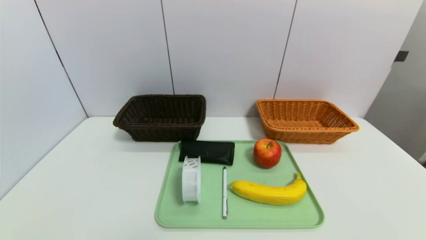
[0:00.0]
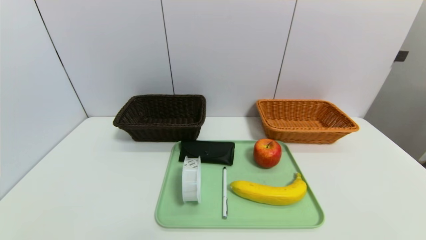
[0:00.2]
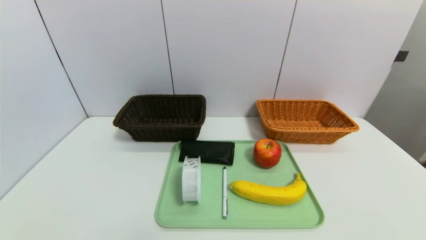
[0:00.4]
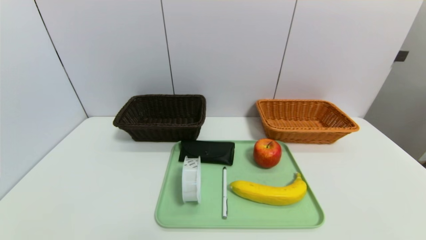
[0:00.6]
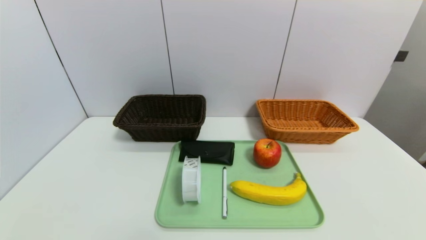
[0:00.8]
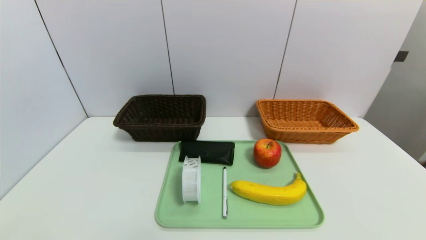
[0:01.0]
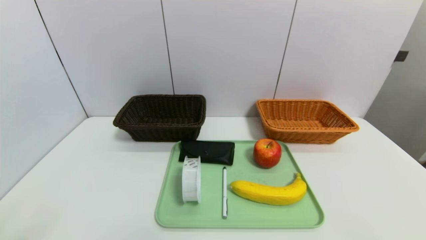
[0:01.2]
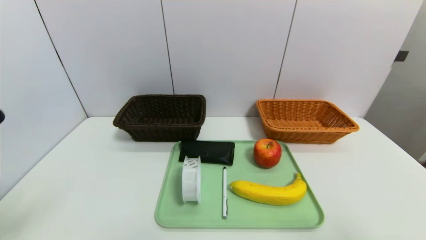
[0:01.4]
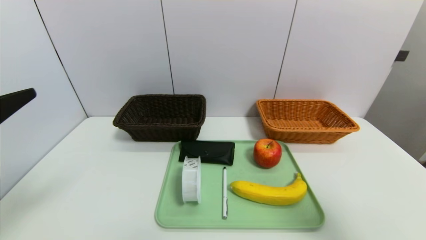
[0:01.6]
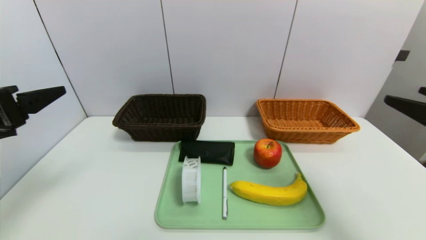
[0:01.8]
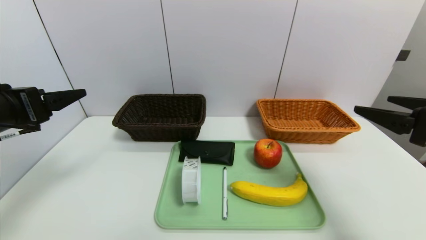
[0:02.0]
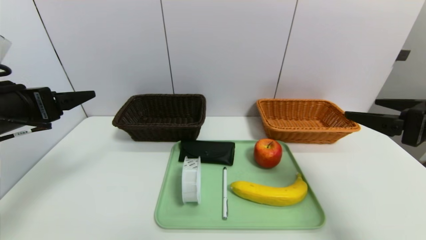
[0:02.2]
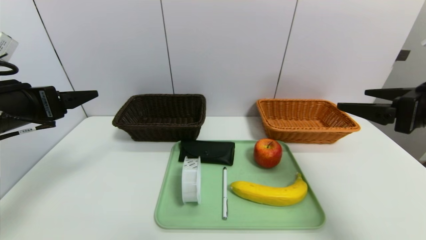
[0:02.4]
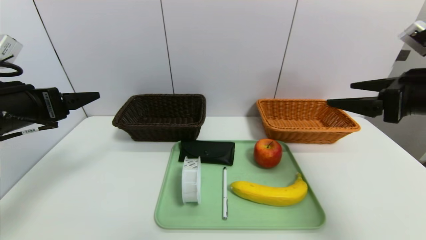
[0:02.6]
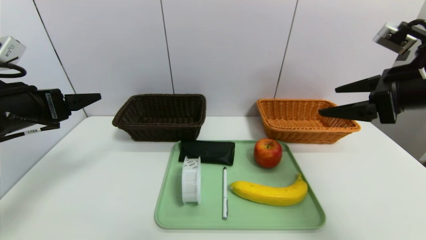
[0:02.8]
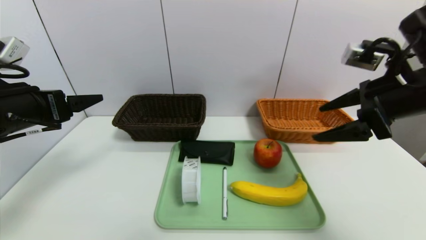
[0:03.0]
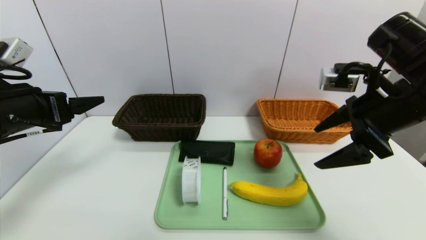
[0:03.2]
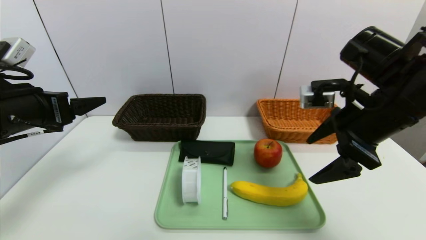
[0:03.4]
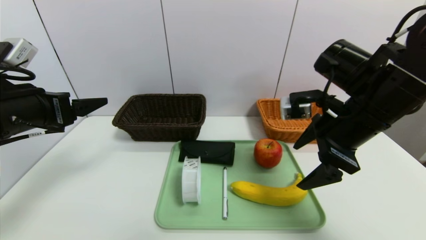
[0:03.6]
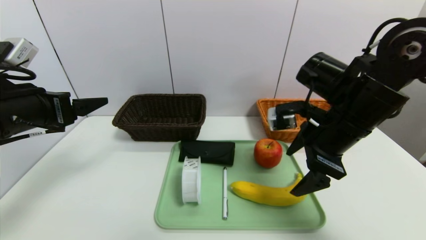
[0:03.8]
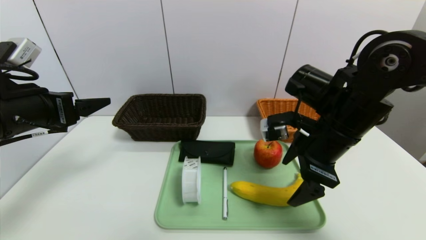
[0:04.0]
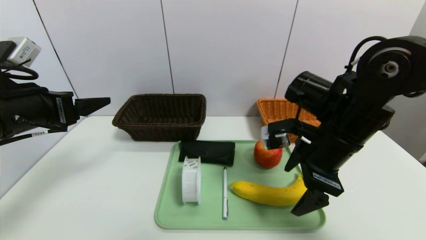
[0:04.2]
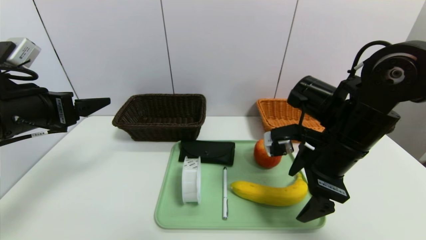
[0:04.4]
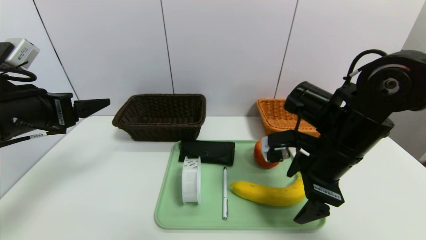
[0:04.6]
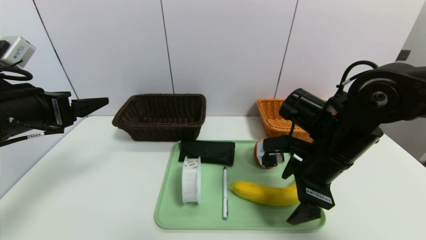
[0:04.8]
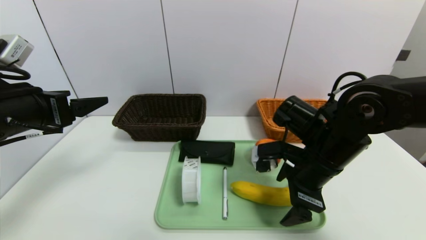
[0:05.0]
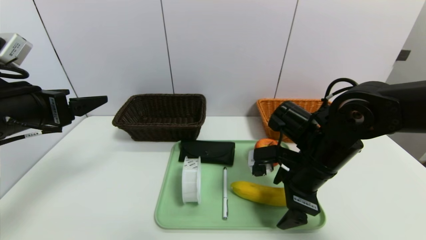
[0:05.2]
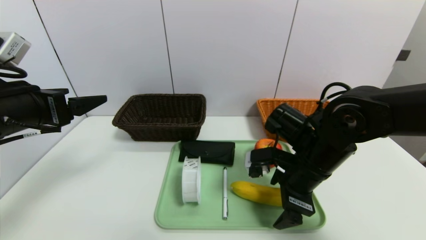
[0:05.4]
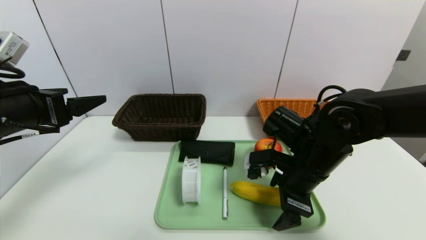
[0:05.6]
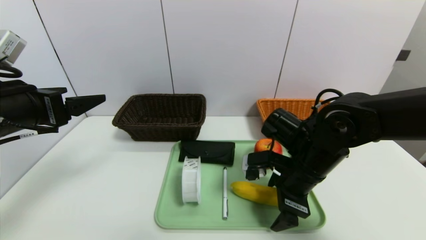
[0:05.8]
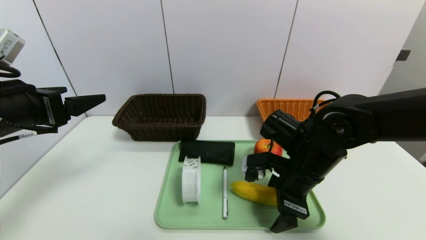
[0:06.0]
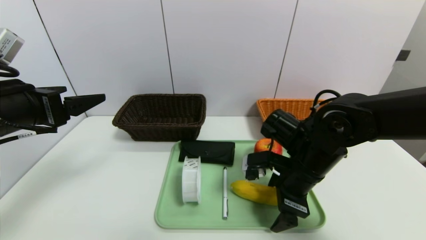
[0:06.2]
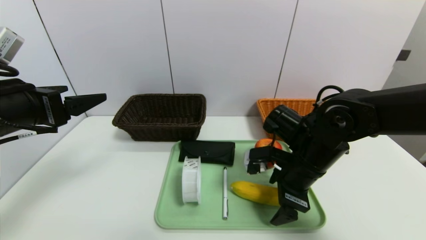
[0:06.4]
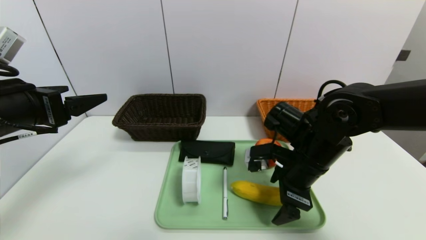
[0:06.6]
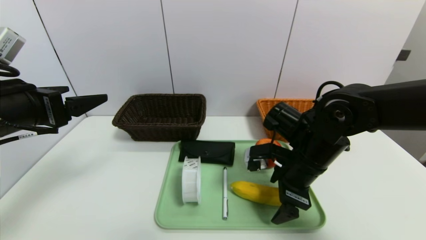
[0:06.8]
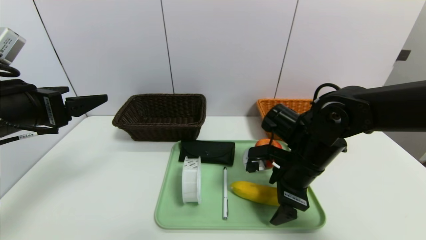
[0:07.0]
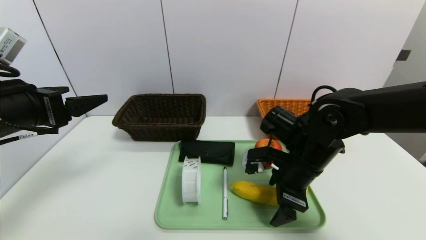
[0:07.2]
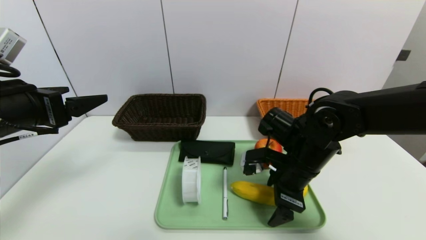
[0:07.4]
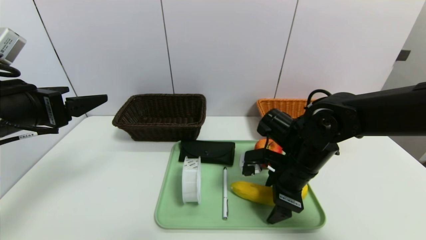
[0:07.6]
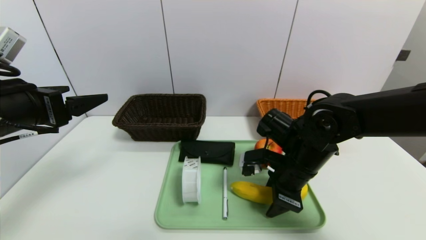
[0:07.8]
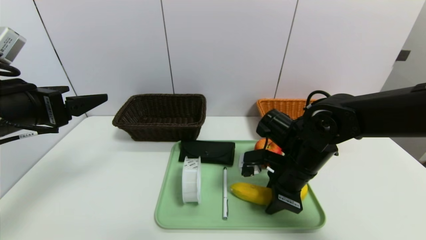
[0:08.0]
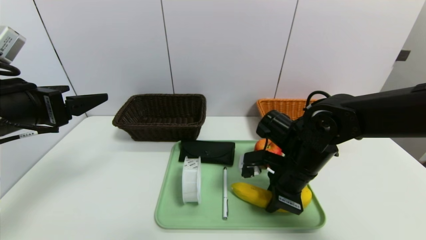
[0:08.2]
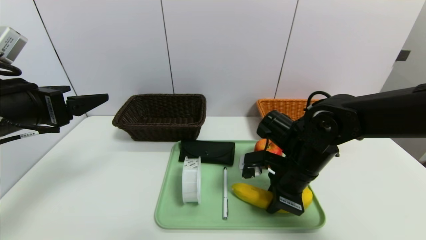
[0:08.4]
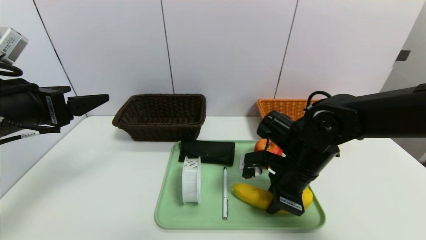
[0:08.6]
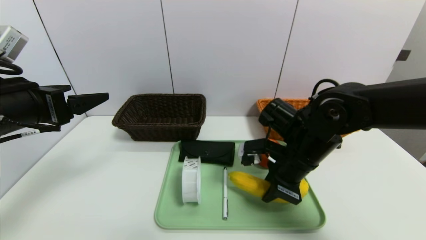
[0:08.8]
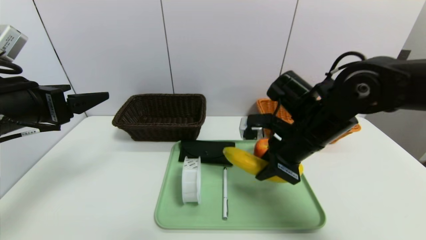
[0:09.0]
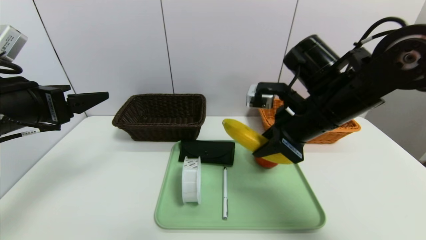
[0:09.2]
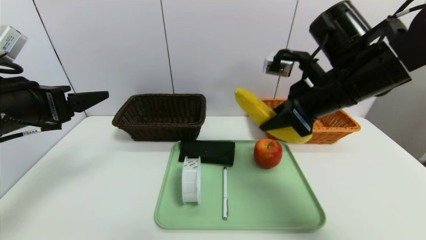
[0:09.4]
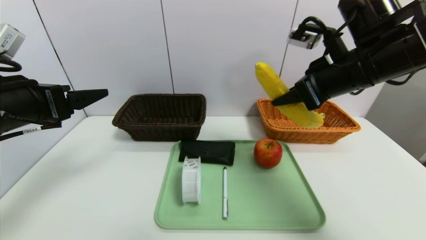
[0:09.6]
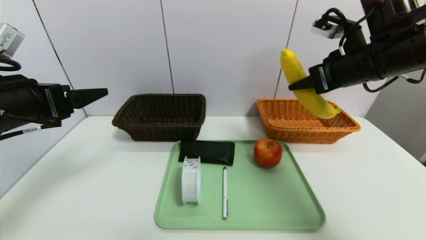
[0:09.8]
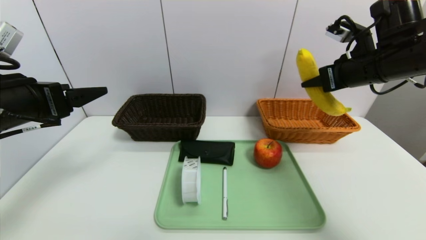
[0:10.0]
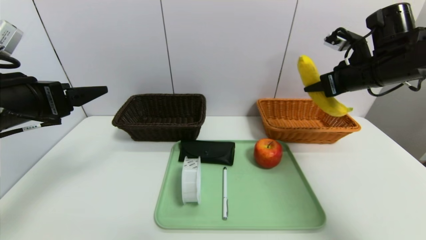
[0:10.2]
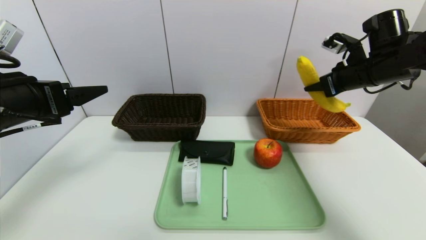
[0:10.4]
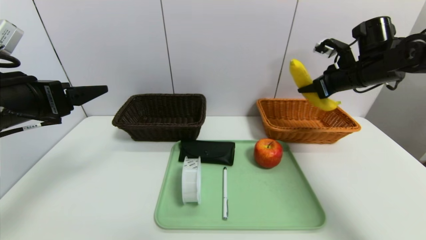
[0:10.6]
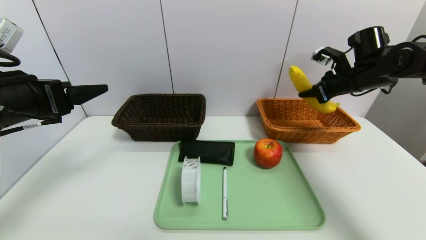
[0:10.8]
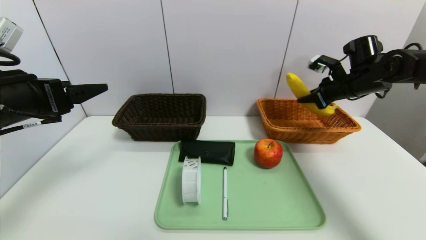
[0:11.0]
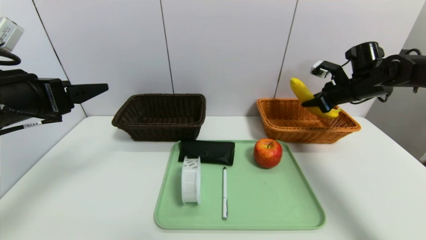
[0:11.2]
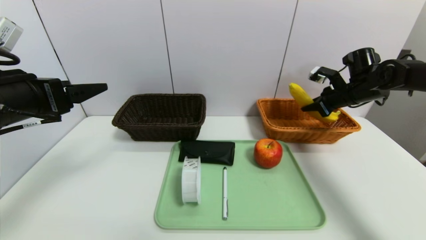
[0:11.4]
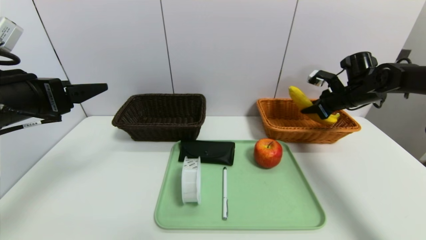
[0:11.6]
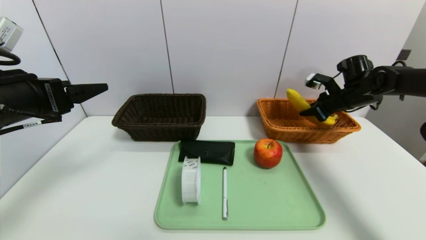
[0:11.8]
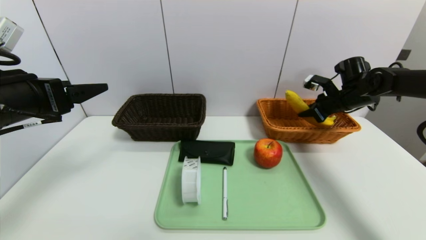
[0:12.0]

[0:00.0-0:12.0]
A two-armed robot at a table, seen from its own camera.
Task of the whole recording: place the food in the right basket with the right gripper, and place the non food items in the left basket with the left gripper.
0:00.0 to 0:01.6: The grippers both shift upward and forward by about 25 cm.
0:01.6 to 0:03.0: The left gripper travels forward by roughly 10 cm. Meanwhile the right gripper moves forward, some 15 cm.
0:03.0 to 0:04.4: The right gripper goes some 10 cm to the left and downward.
0:04.4 to 0:06.0: The right gripper travels downward by some 5 cm.
0:06.0 to 0:07.6: The grippers stay close to where they were, moving slightly.
0:07.6 to 0:09.0: The right gripper travels upward by roughly 5 cm, and closes up.
0:09.0 to 0:10.4: The right gripper goes approximately 20 cm to the right, forward and upward.
0:10.4 to 0:12.0: The right gripper goes roughly 10 cm downward and forward.

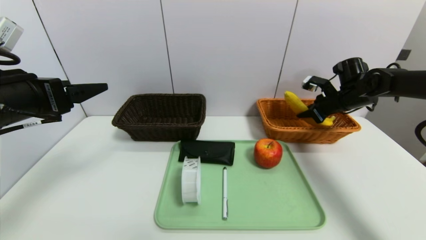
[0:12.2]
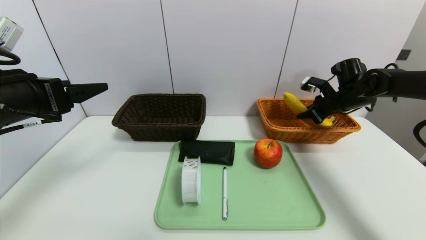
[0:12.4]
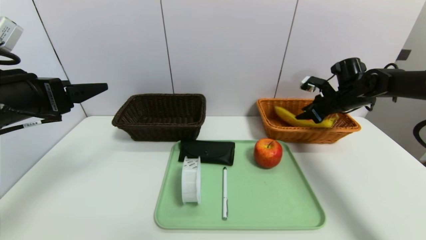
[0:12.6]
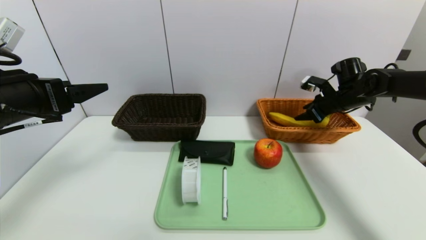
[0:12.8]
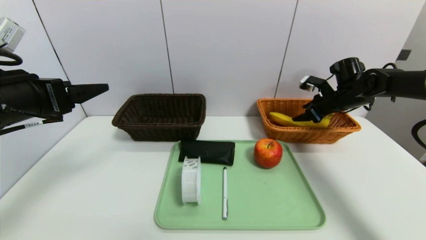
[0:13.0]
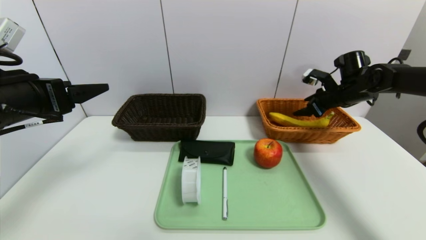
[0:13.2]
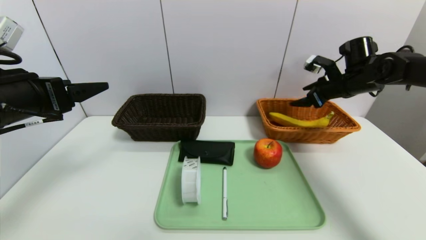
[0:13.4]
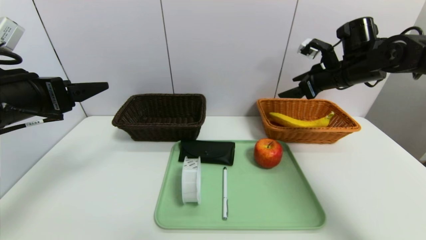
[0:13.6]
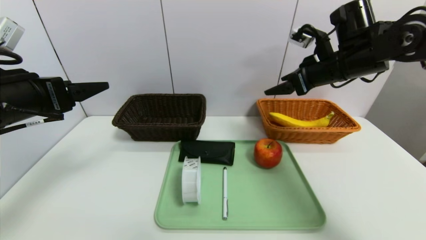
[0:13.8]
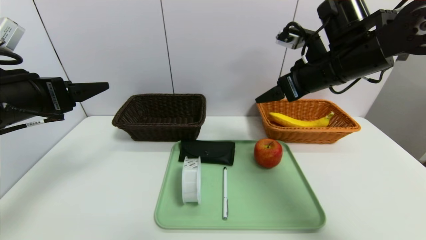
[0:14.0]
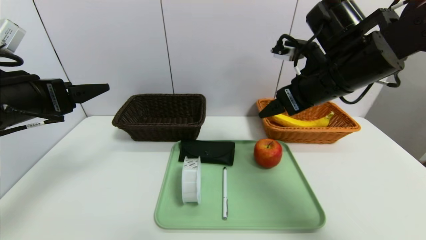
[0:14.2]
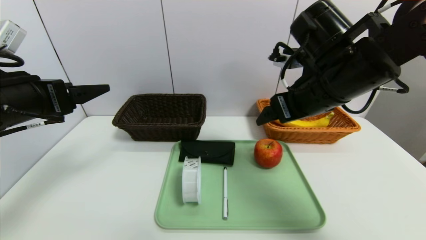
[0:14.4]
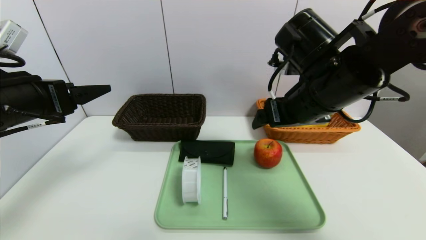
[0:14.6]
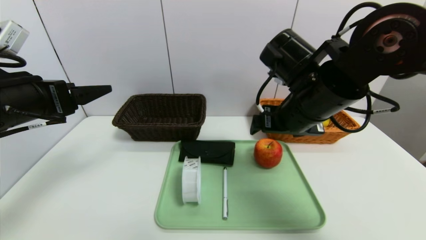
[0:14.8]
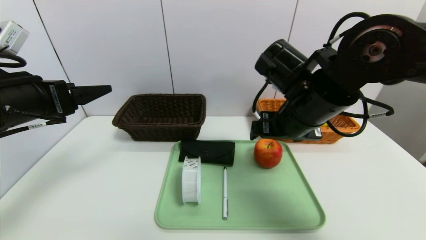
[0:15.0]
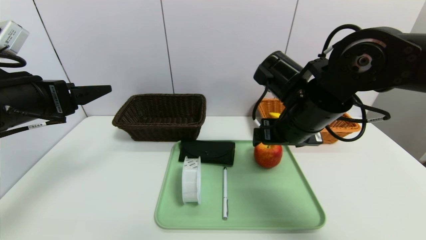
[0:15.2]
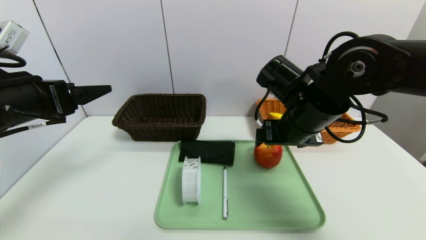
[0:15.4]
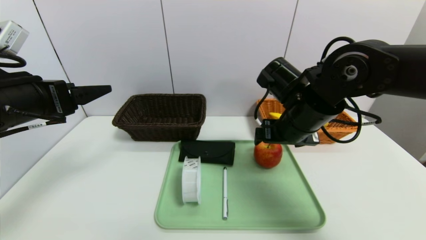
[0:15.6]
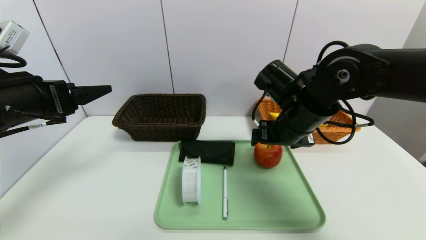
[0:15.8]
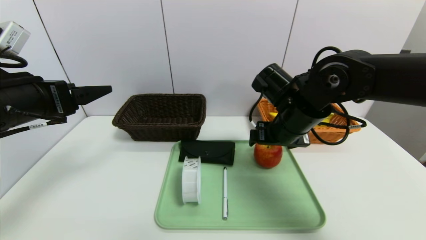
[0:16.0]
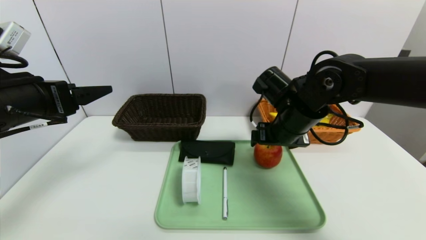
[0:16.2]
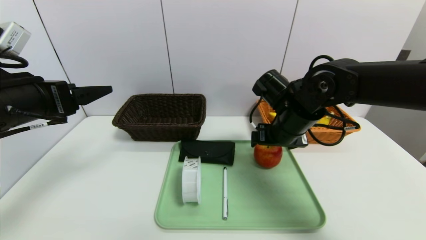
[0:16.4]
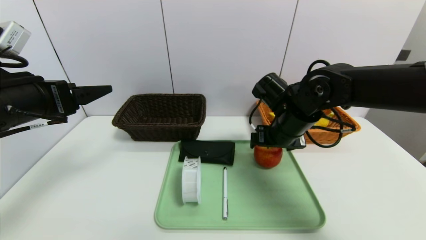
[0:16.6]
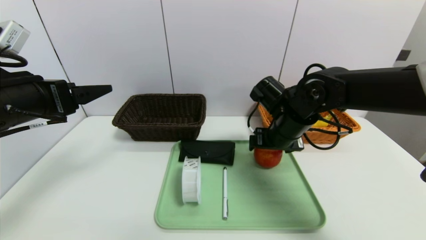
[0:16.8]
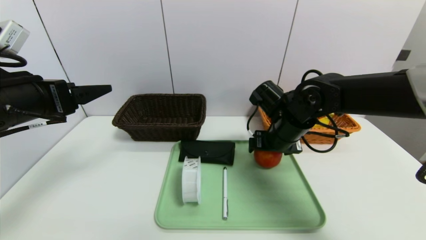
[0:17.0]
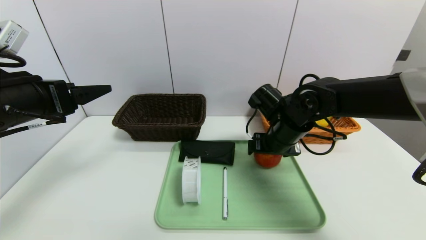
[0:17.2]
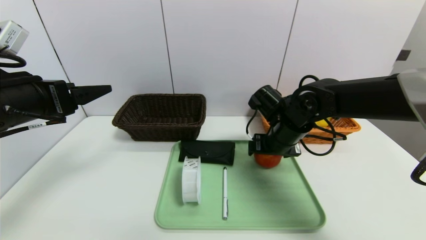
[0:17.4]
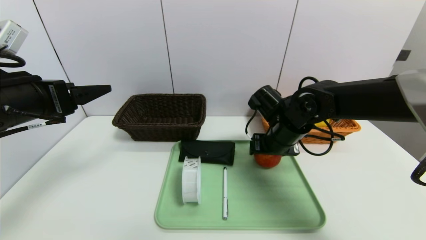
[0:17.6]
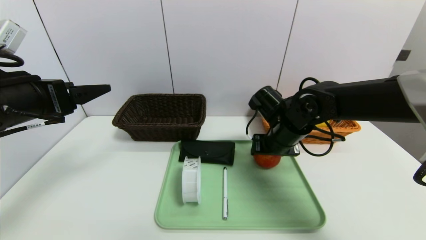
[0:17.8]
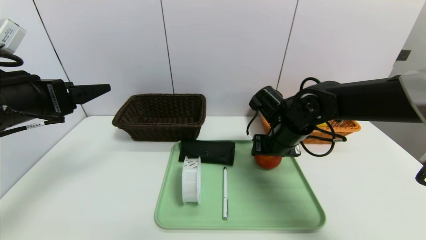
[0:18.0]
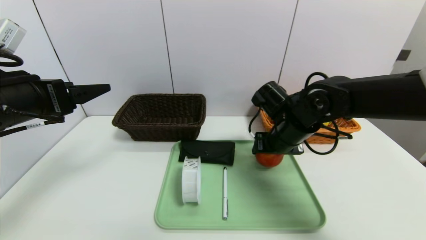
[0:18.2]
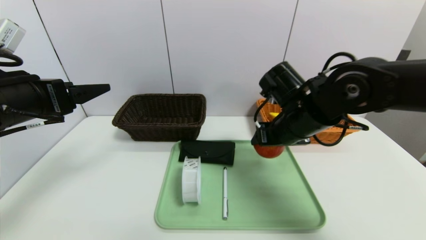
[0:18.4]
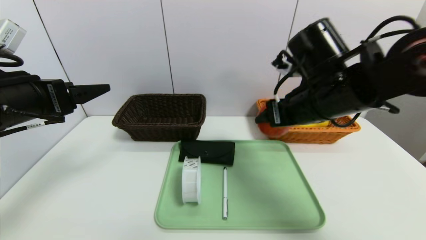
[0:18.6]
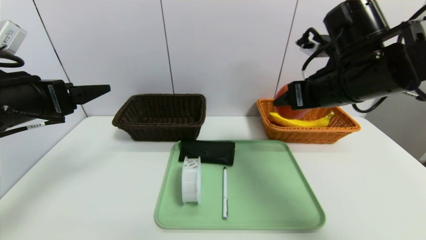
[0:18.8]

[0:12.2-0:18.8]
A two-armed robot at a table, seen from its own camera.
Task of the whole recording: place the food in the right basket with the right gripper, and place the non food items in the left basket with the left gripper.
0:12.2 to 0:13.8: The right gripper moves upward, to the left and backward, approximately 20 cm, and opens.
0:13.8 to 0:15.4: The right gripper travels to the left, backward and downward by about 15 cm.
0:15.4 to 0:17.2: The right gripper heads downward and forward, covering approximately 10 cm.
0:17.2 to 0:18.8: The right gripper moves upward, backward and to the right, roughly 15 cm, and closes up.
